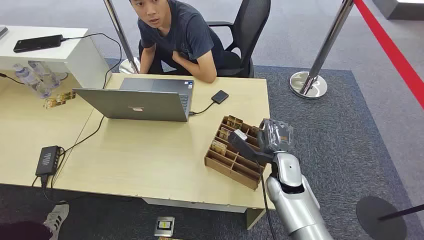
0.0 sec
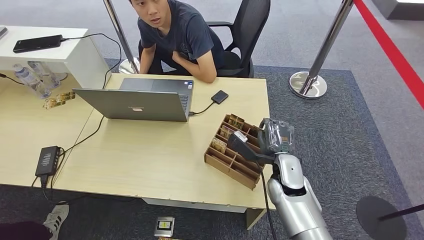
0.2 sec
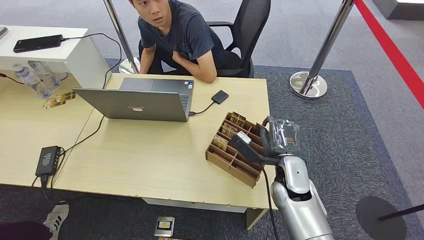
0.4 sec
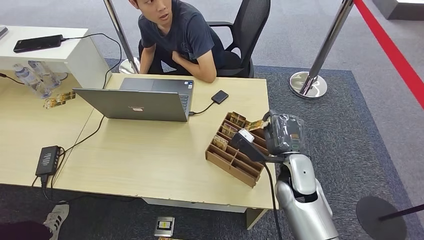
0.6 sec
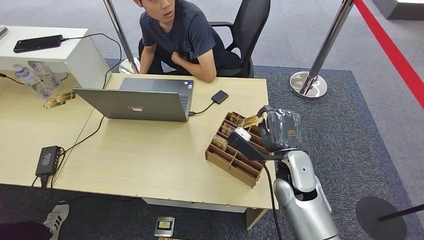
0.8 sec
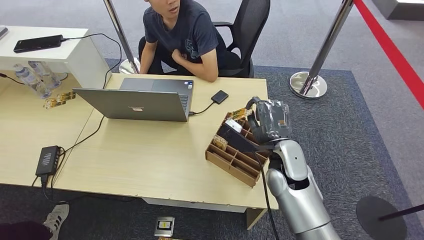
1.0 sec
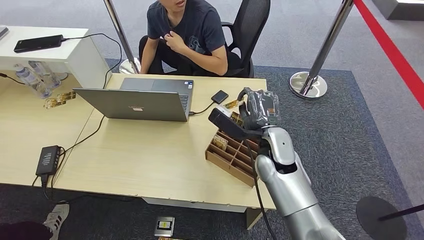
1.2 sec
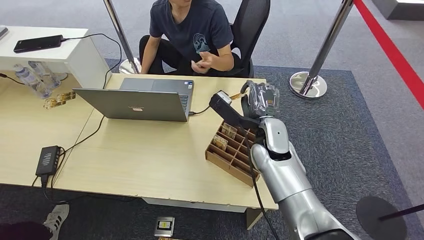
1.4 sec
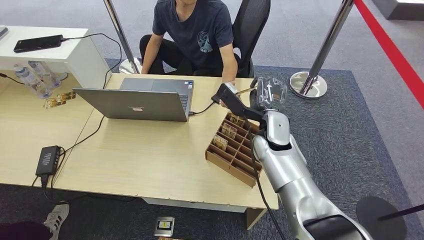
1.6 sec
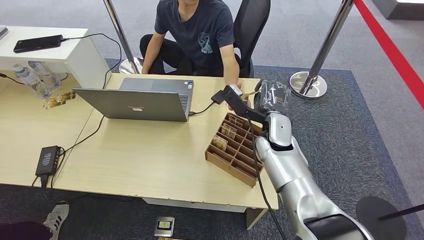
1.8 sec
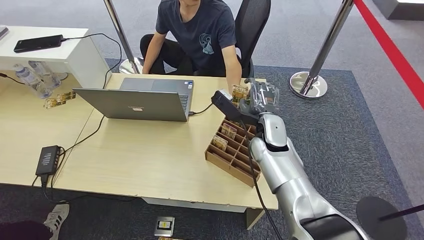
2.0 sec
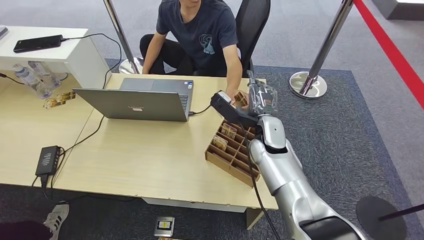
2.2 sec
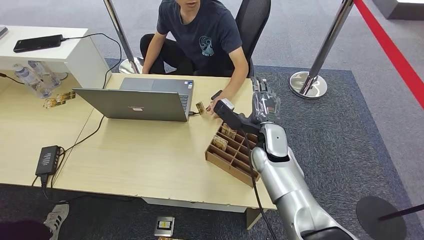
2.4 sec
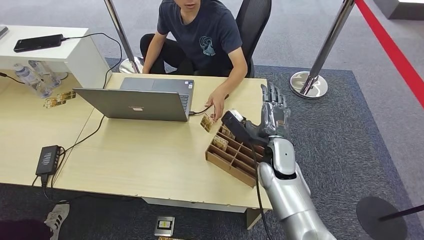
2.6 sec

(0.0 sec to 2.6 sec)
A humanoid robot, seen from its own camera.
Step, 0.0 sec - 1.2 sec: Pick up the key card from the card box.
Step, 1.4 sec - 2.6 sec: Hand the key card to the target.
1.2 sec - 2.6 sec: The hands stay close to where they were, moving slightly.
